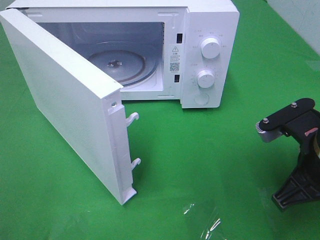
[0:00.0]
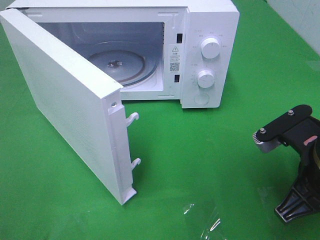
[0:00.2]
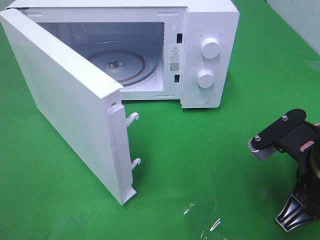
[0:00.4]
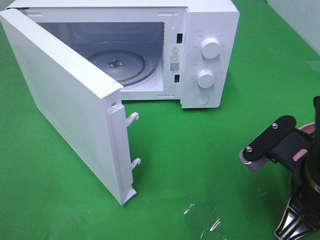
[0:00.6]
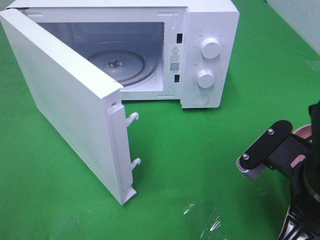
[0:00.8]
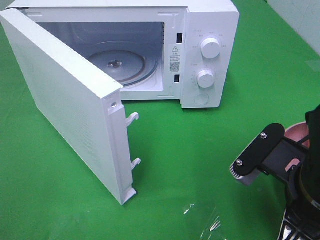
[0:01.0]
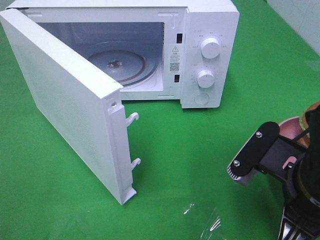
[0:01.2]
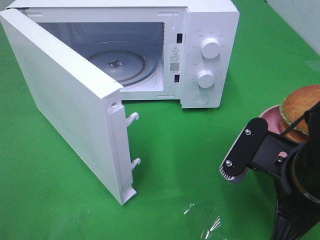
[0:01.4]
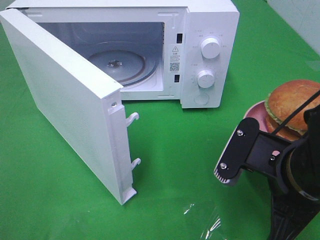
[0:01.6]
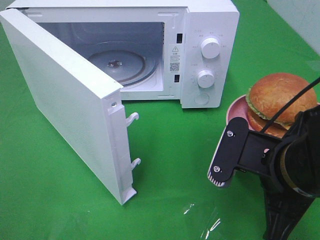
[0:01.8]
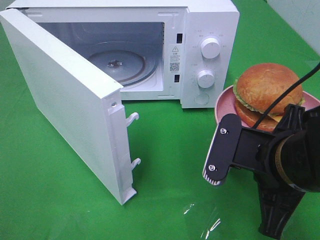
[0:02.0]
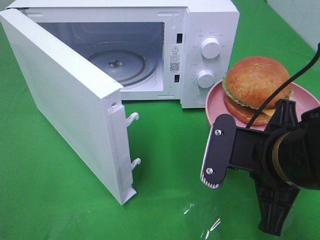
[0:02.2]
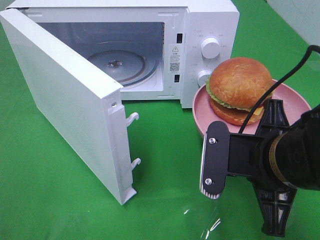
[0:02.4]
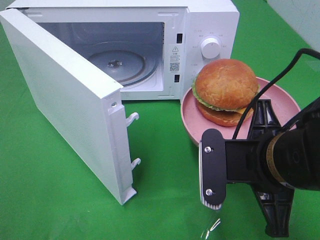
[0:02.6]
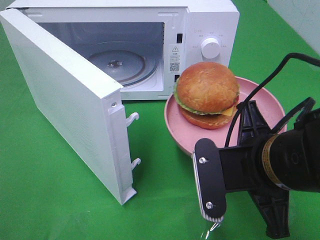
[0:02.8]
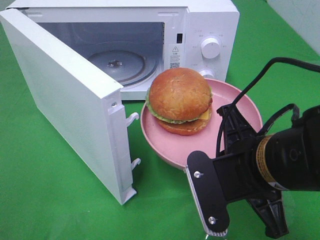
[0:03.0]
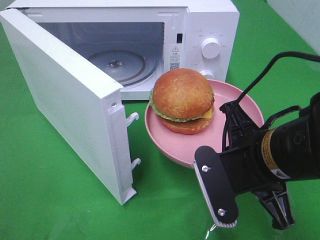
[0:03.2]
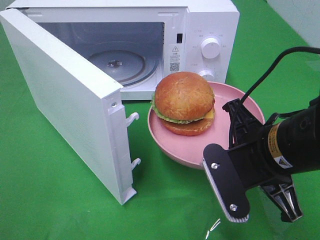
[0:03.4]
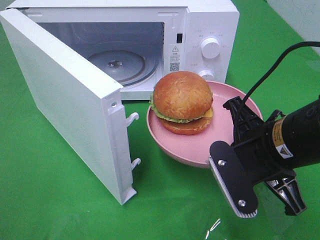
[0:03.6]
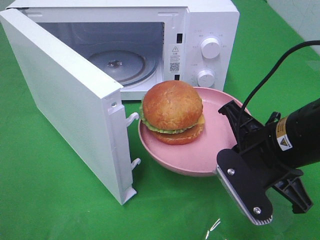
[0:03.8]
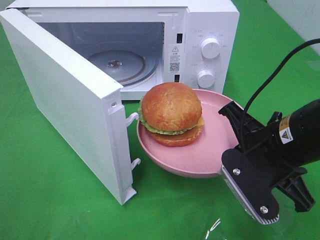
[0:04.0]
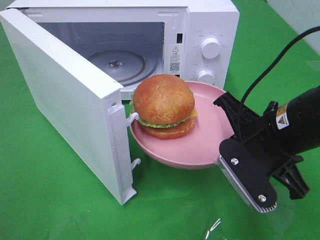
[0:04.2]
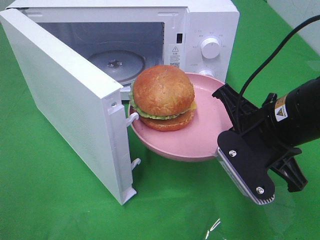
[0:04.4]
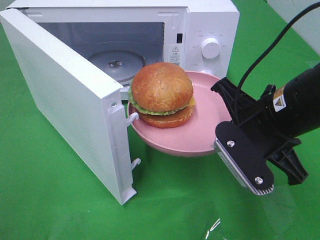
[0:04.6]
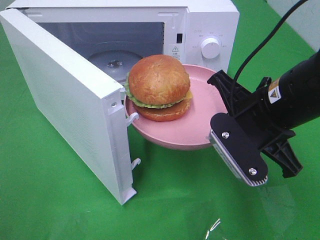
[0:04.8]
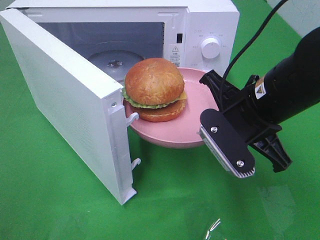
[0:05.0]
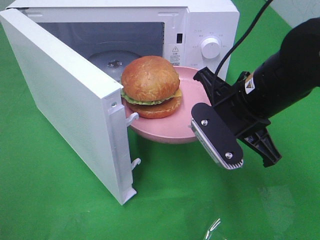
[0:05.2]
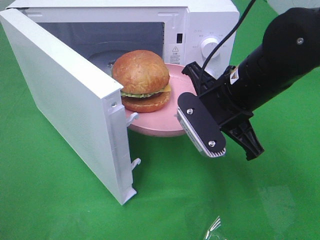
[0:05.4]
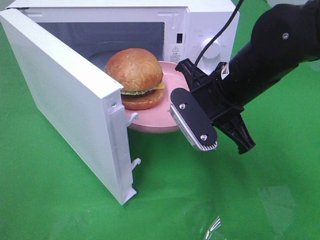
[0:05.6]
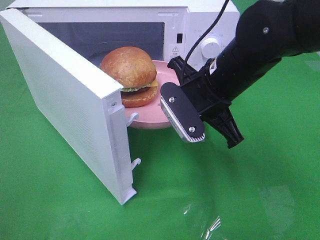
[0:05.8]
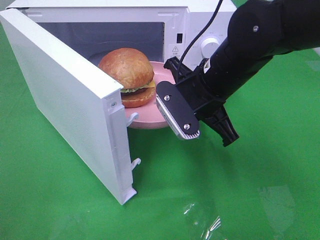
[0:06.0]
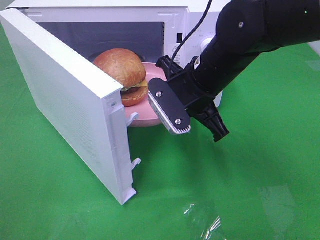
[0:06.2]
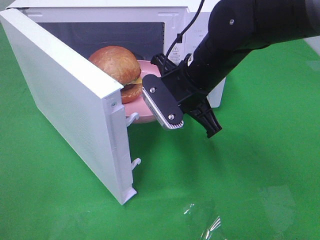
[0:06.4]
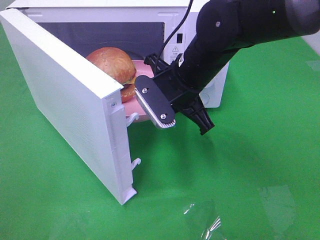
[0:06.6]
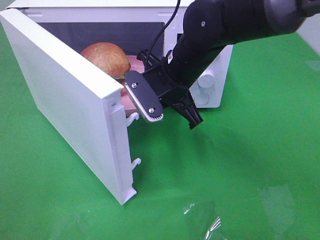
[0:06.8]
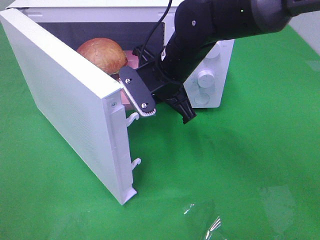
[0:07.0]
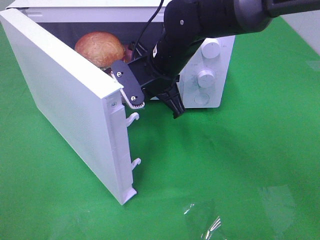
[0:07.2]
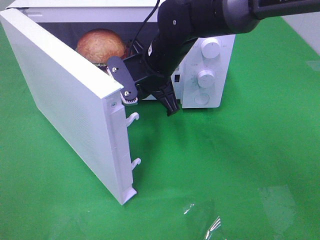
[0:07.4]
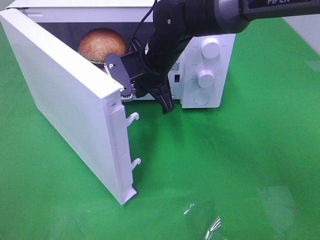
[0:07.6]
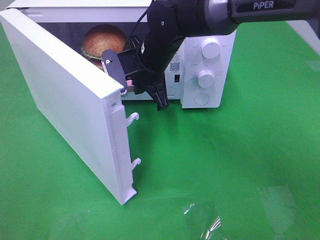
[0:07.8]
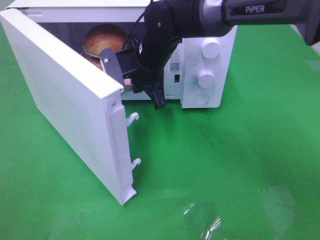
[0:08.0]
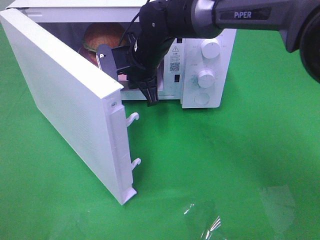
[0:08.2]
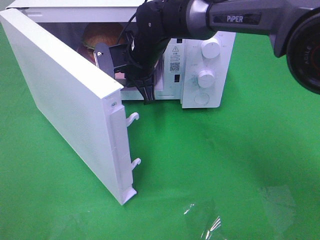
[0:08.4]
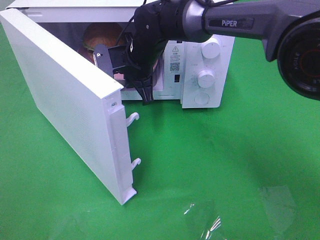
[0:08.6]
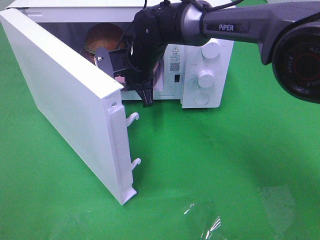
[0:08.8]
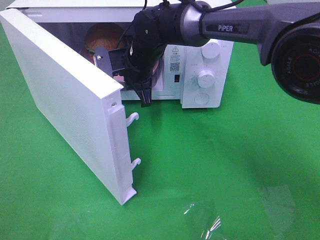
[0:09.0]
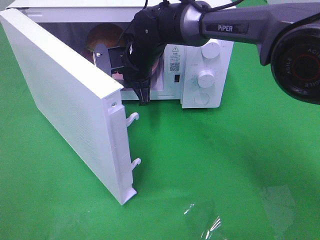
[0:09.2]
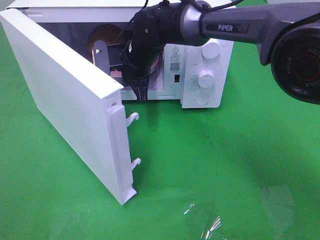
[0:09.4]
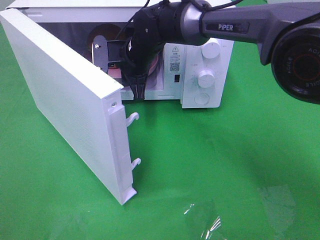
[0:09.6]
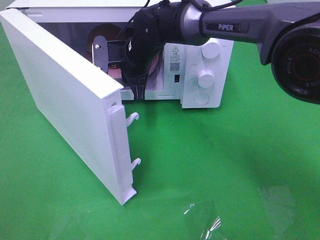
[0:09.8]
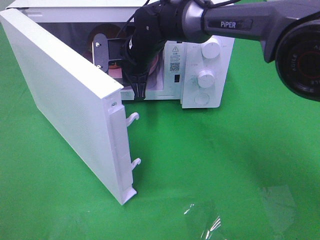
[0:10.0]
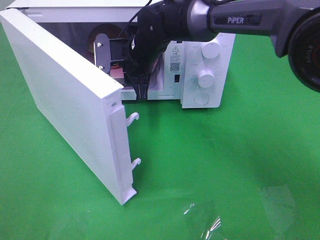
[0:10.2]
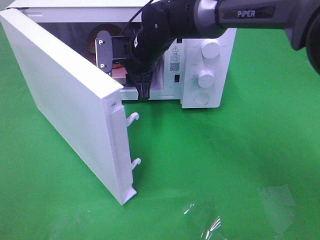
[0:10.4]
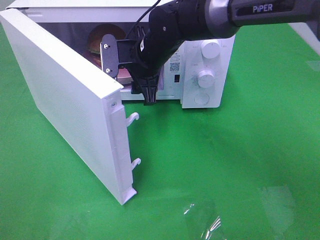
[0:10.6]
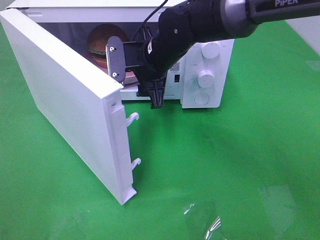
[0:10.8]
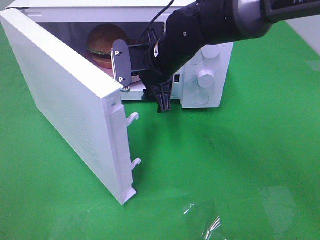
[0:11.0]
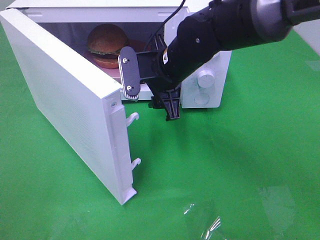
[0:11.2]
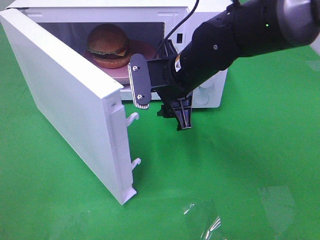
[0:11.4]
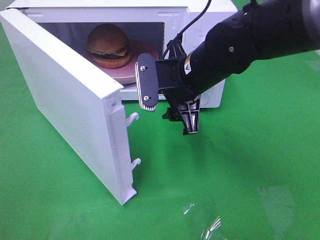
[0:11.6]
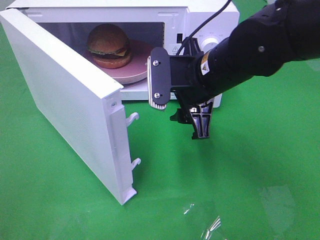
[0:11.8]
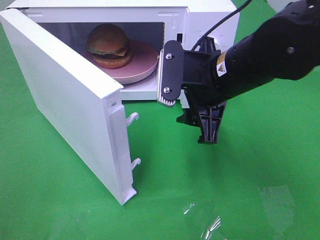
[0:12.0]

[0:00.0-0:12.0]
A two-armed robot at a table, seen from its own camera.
Task of the whole recording: Heat the burger.
Step, 0:00.0 to 0:10.6: Right hand: place the plate in the microwave.
0:00.0 to 0:01.6: The right gripper goes approximately 5 cm to the left.
0:03.0 to 0:04.4: The right gripper shifts about 5 cm forward.
0:04.4 to 0:06.0: The right gripper moves forward and to the left, some 10 cm.
0:06.0 to 0:07.6: The right gripper shifts some 10 cm forward and to the left.
0:07.6 to 0:09.0: The right gripper ends up roughly 5 cm from where it was.
0:09.0 to 0:10.4: The right gripper opens.
0:10.4 to 0:12.0: The right gripper moves backward and to the right, approximately 20 cm.

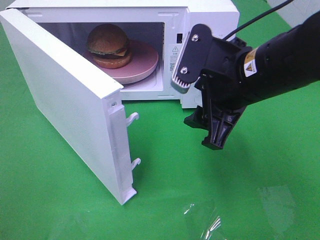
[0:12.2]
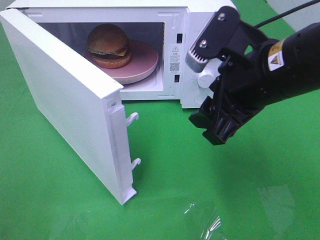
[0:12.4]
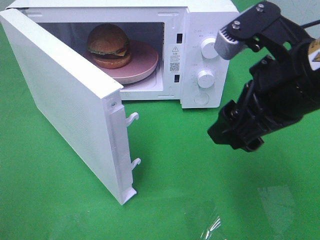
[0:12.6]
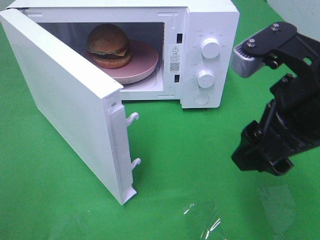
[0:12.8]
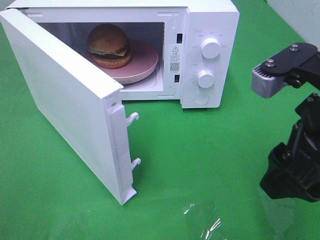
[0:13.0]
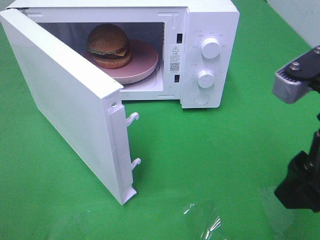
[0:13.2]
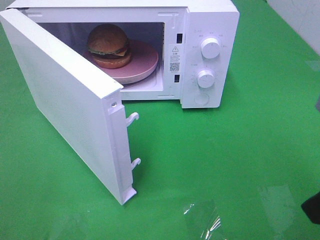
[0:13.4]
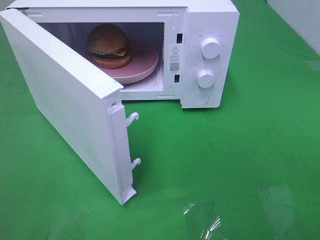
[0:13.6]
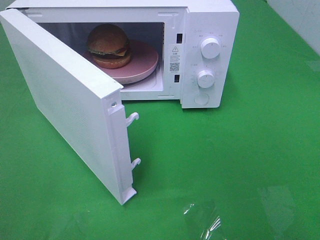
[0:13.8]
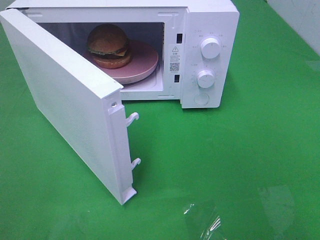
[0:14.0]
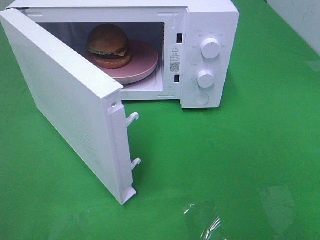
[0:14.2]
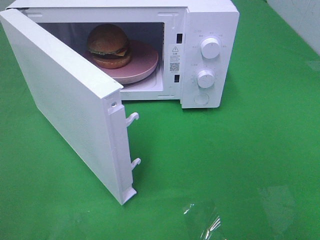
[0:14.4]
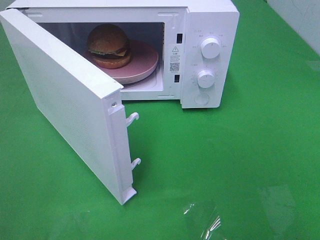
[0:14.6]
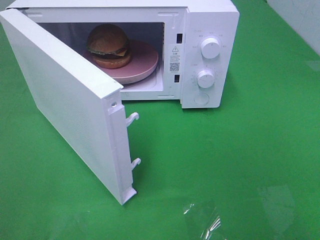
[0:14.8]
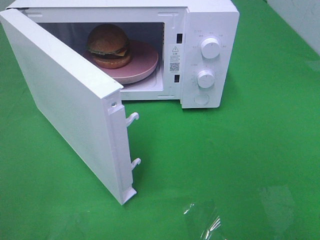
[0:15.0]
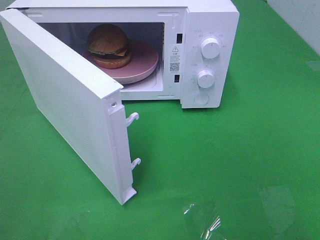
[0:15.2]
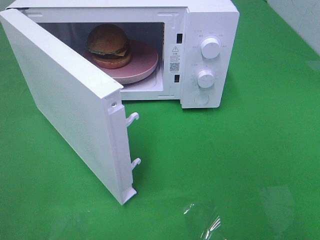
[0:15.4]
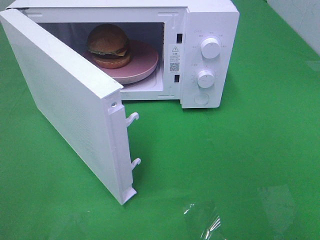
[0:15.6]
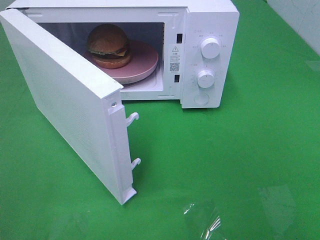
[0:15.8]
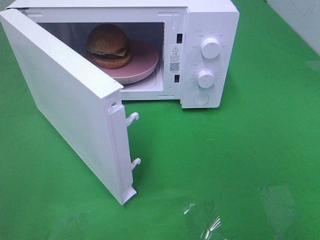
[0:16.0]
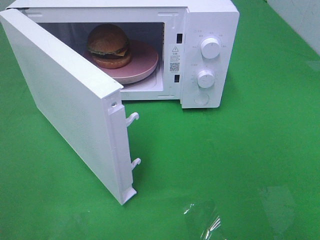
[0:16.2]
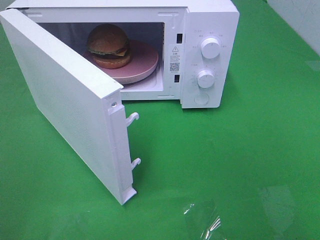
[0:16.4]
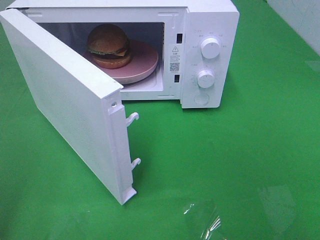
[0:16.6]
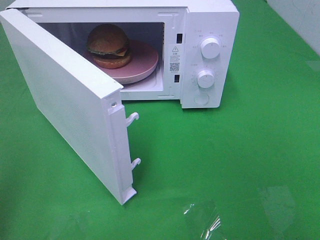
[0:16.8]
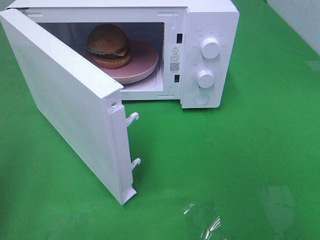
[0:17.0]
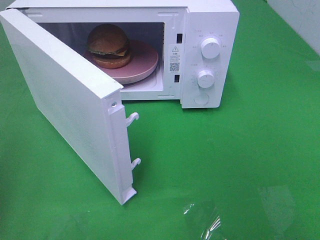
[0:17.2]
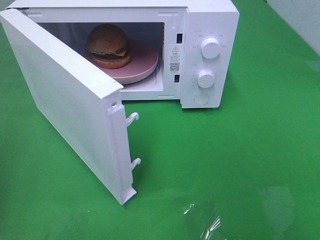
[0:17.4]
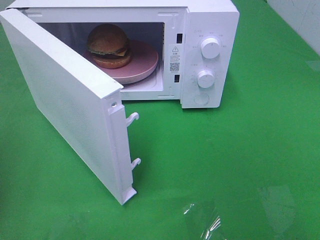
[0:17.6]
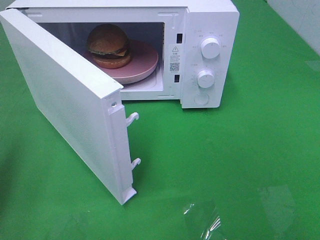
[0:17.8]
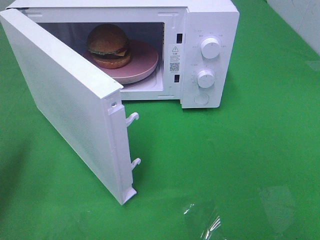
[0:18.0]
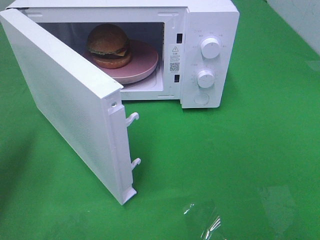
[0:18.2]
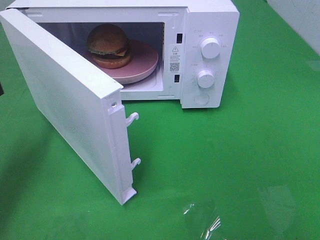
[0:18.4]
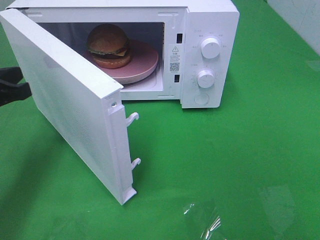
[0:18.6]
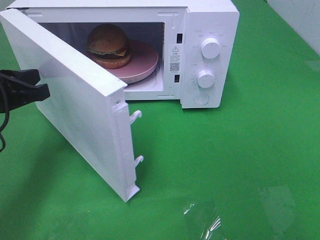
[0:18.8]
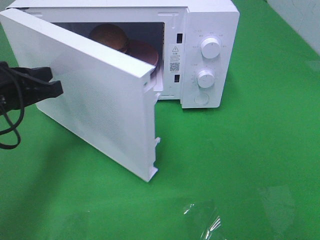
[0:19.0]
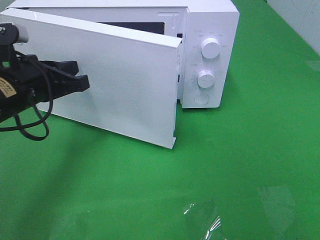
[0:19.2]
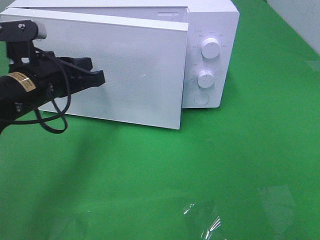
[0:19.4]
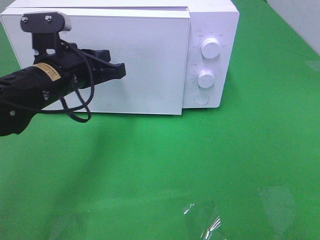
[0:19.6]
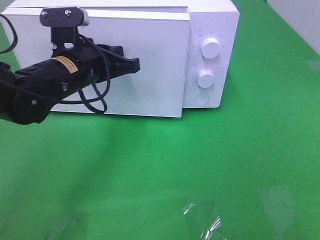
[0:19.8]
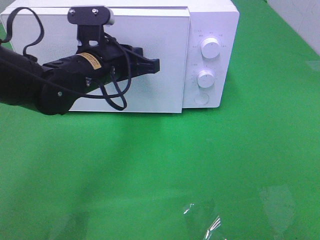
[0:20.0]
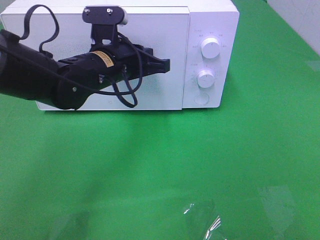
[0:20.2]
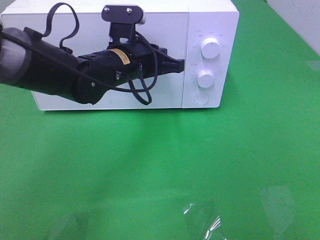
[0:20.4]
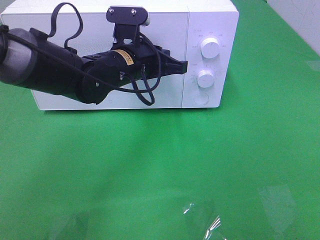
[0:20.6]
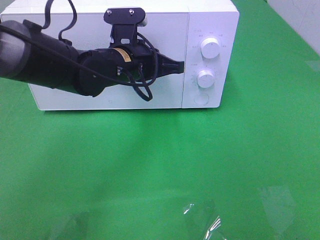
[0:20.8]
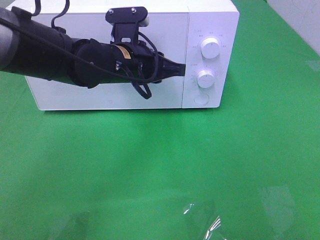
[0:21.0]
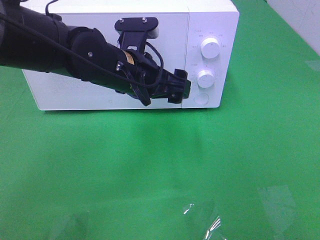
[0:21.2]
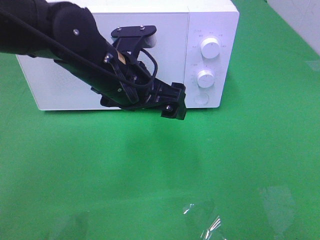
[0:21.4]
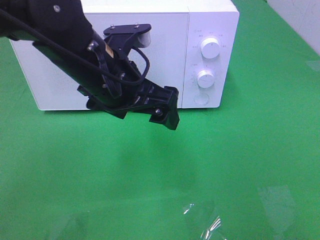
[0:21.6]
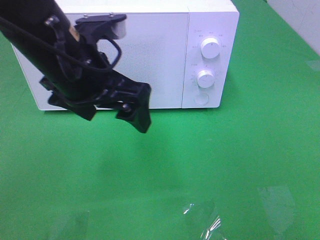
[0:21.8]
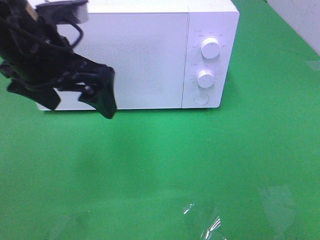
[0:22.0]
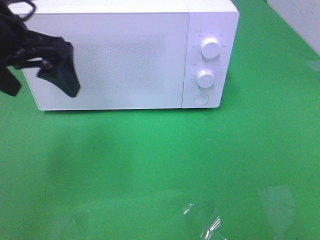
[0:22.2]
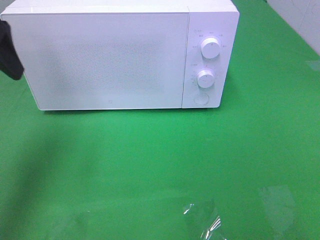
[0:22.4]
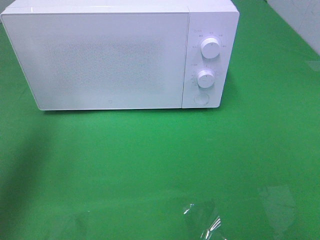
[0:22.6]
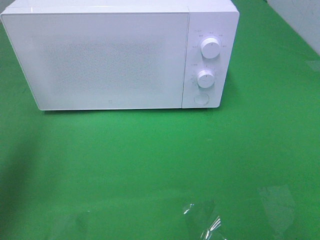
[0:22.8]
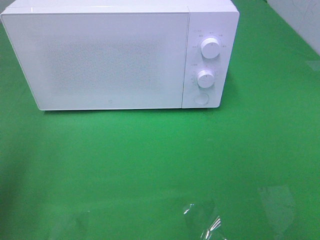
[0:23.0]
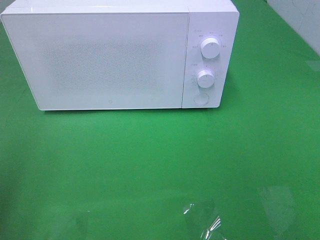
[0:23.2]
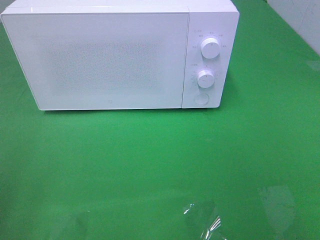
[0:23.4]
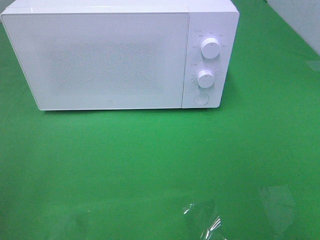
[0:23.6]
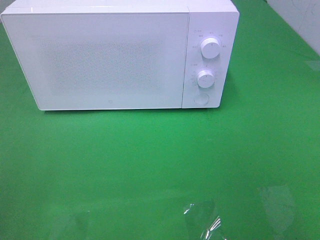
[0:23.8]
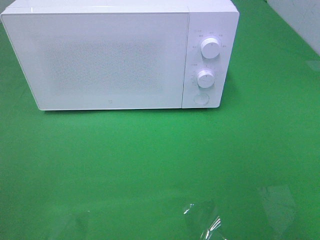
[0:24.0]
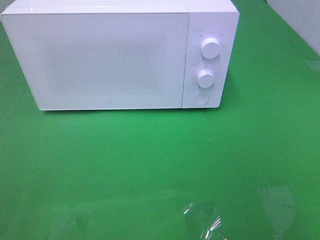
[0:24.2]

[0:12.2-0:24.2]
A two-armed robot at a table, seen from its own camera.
Task of the whole recording: Heat the burger.
Step, 0:12.2 to 0:21.2: Left hand: close the microwave door.
0:12.2 to 0:13.8: The right gripper travels backward and to the right by roughly 25 cm.
0:16.6 to 0:18.2: The left gripper is displaced forward and downward by roughly 20 cm.
0:18.2 to 0:19.8: The left gripper is displaced to the right and forward by approximately 20 cm.
0:19.8 to 0:21.2: The left gripper moves to the right, some 5 cm, and opens up.
0:21.2 to 0:22.6: The left gripper moves to the left and upward, about 30 cm.
0:22.6 to 0:24.2: The left gripper shifts about 25 cm backward.
